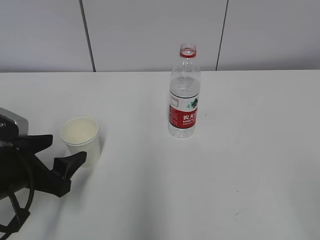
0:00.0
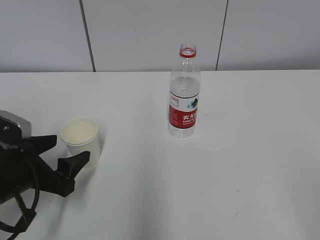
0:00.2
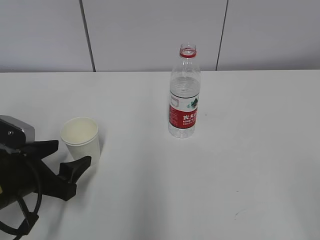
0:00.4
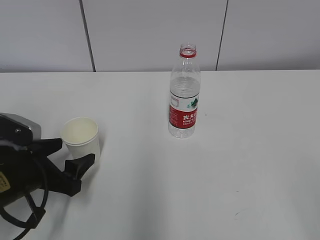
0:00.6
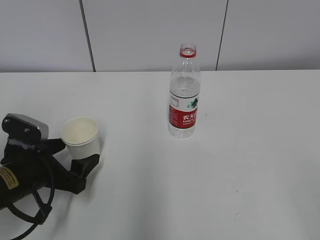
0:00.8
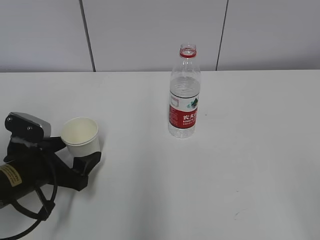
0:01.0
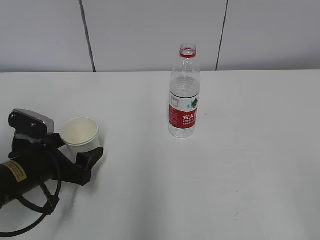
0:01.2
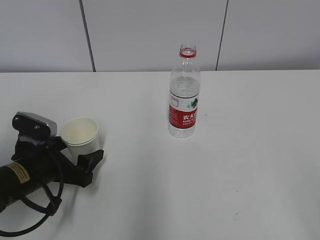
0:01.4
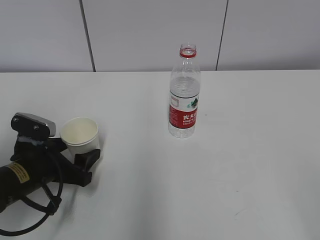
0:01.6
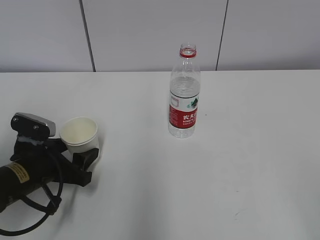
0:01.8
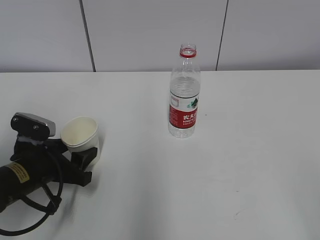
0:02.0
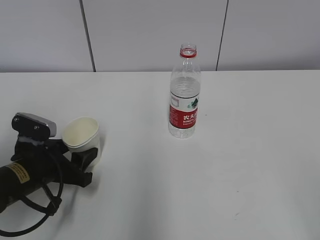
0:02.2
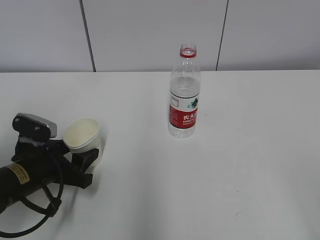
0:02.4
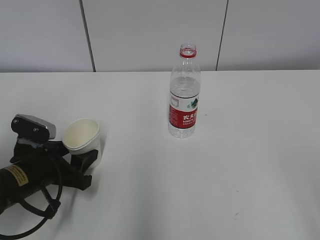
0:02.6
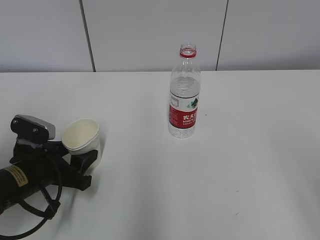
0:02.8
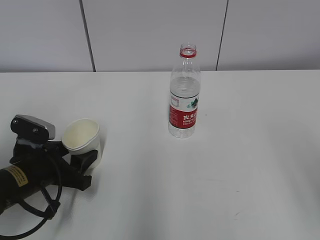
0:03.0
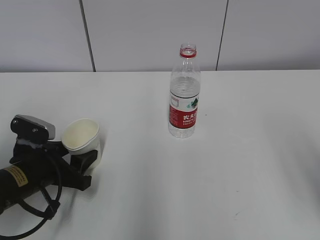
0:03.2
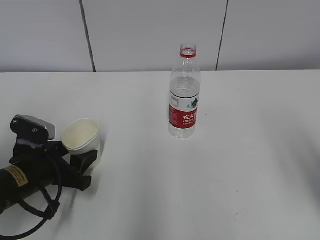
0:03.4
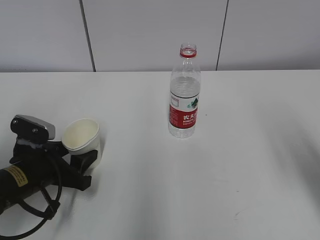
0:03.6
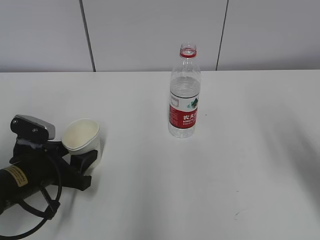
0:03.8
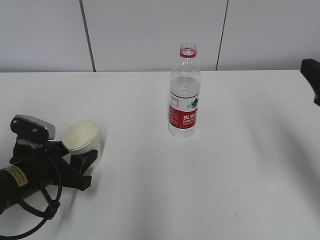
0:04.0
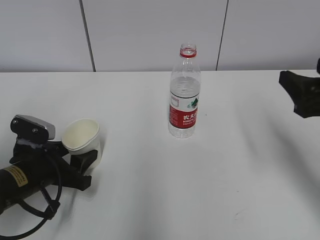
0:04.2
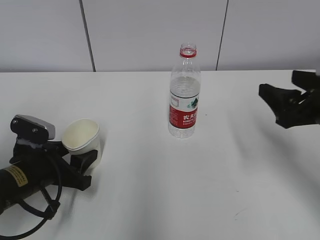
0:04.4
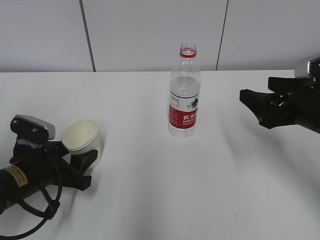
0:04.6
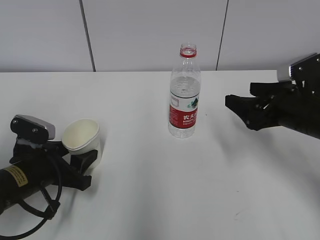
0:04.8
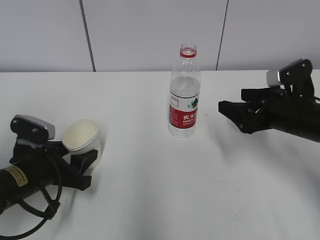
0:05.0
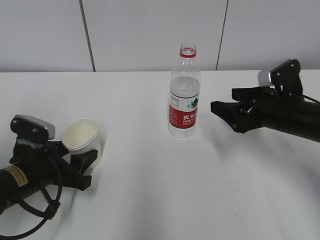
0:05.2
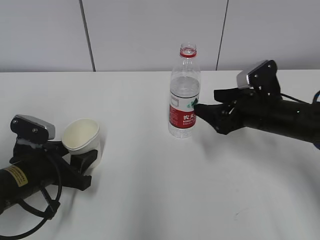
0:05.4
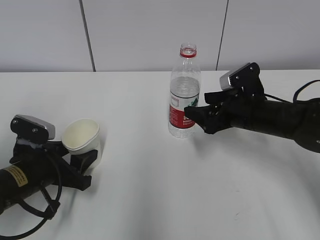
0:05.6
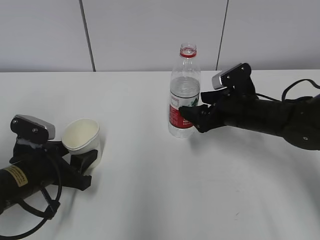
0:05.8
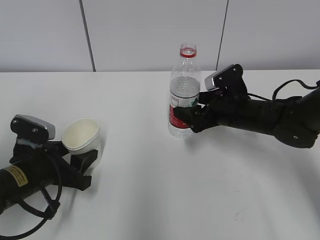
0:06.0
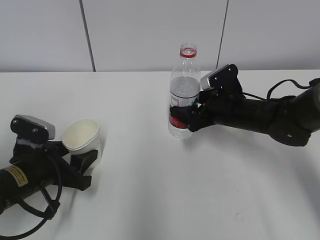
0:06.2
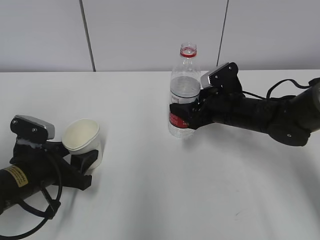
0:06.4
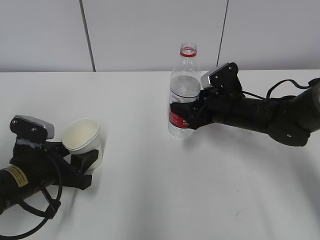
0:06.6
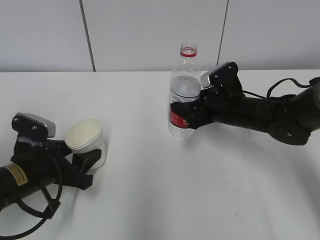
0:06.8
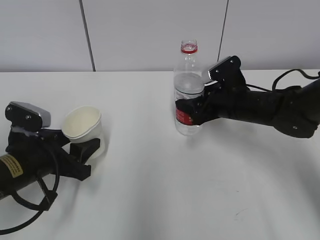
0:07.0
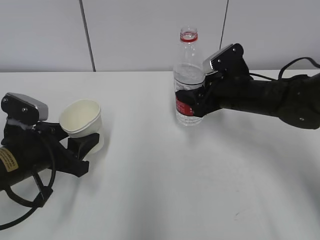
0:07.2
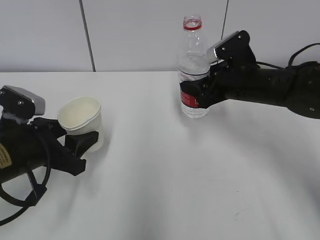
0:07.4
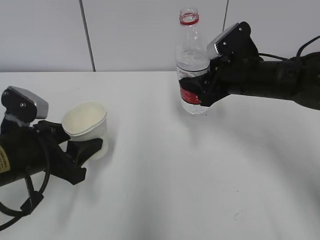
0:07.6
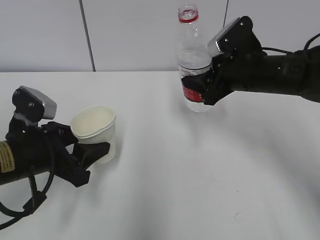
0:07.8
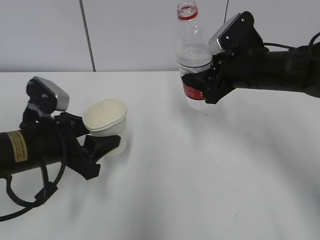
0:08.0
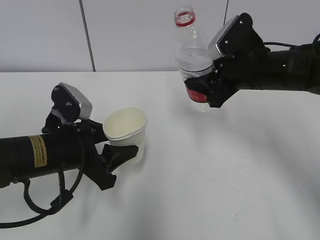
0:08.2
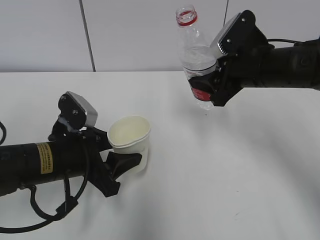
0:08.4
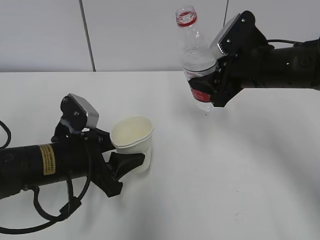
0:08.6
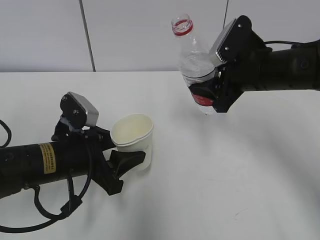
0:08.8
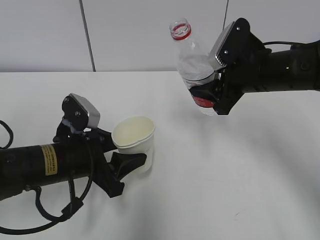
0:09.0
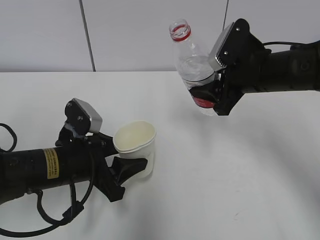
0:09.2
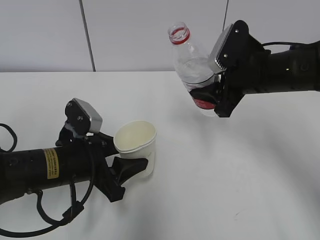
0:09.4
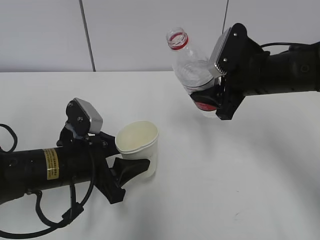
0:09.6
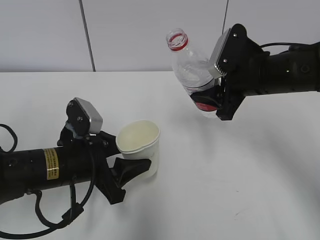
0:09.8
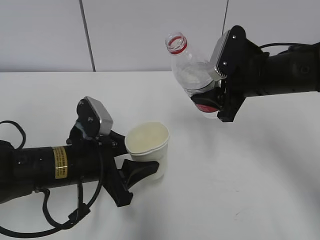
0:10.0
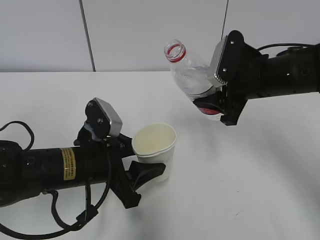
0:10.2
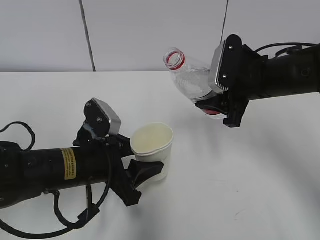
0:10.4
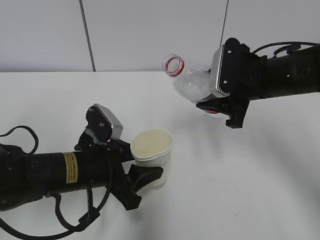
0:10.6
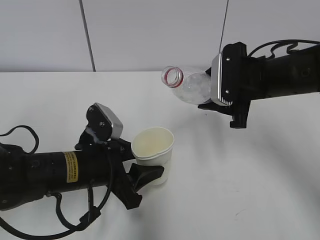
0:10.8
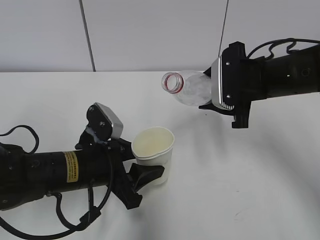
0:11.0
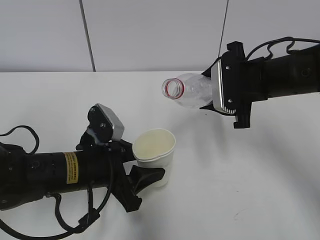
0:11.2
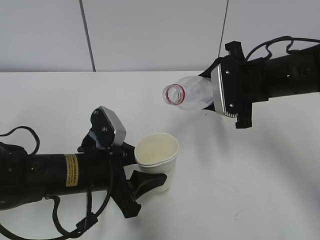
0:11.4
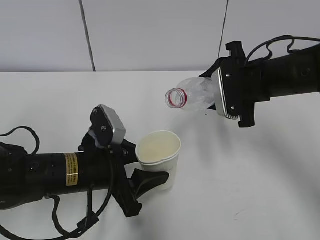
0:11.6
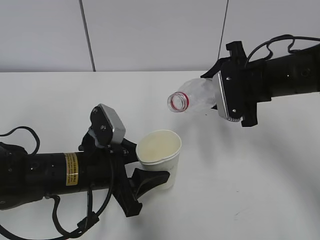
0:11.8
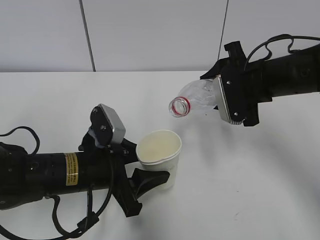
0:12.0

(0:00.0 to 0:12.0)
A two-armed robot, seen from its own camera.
Step, 0:00.0 - 0:04.2: Grab the paper cup with the left hand.
Step, 0:04.6 - 0:09.6: Lift the paper cup with the left hand.
0:00.0 - 0:01.6: The left gripper moves about 5 cm.
0:01.6 - 0:03.0: The left gripper closes.
0:03.0 - 0:04.4: The right gripper shifts approximately 20 cm forward and downward.
0:04.4 - 0:06.0: The right gripper goes about 20 cm forward, to the left and downward.
0:06.0 - 0:07.6: Both grippers move upward, roughly 10 cm. The right gripper closes.
0:07.6 - 0:09.0: The left gripper travels to the right by approximately 5 cm.
0:09.0 - 0:10.4: There are only small adjustments of the grippers.

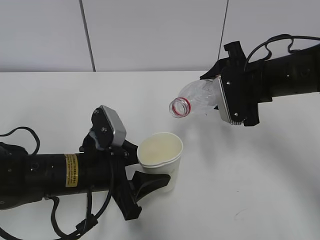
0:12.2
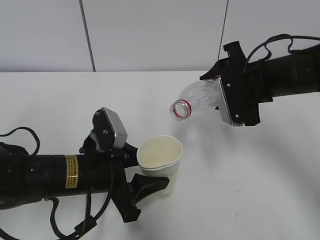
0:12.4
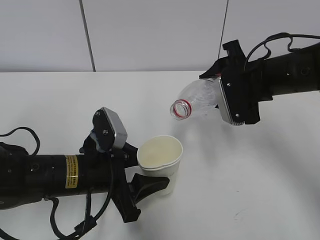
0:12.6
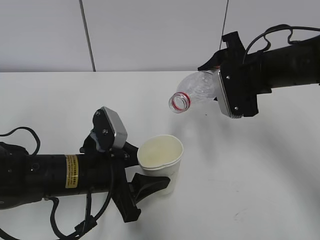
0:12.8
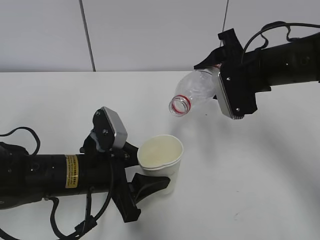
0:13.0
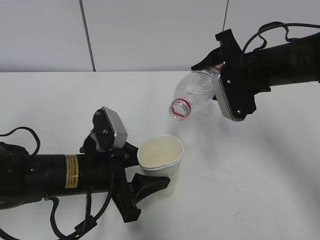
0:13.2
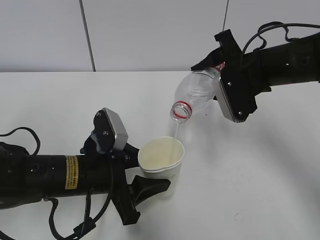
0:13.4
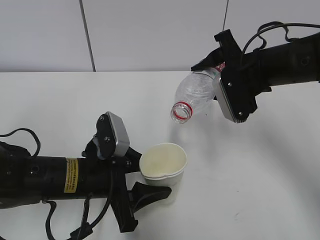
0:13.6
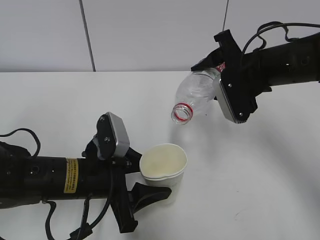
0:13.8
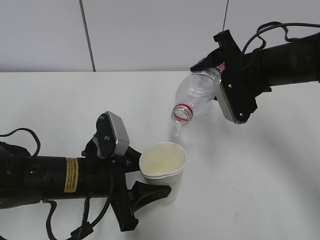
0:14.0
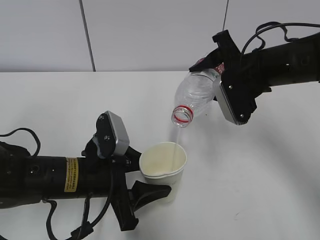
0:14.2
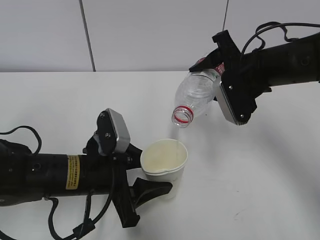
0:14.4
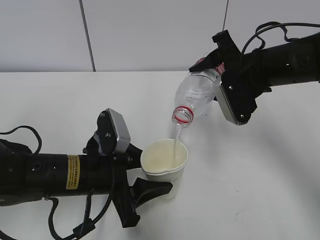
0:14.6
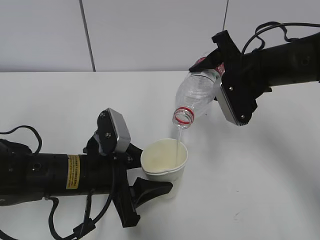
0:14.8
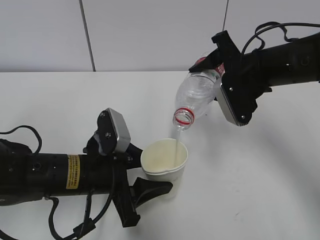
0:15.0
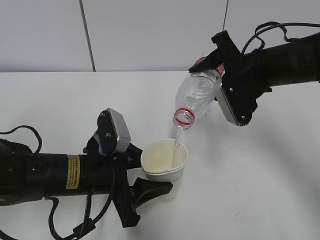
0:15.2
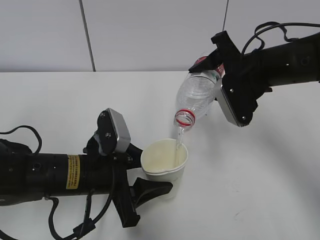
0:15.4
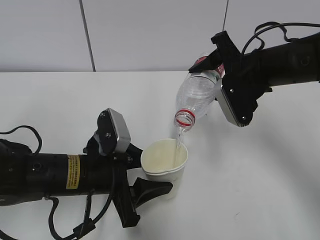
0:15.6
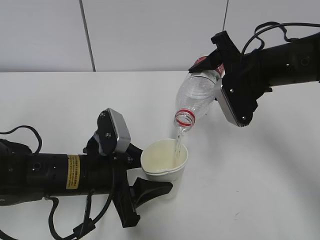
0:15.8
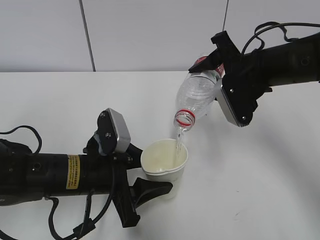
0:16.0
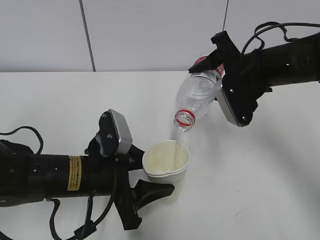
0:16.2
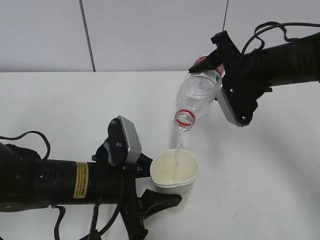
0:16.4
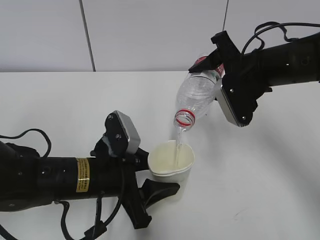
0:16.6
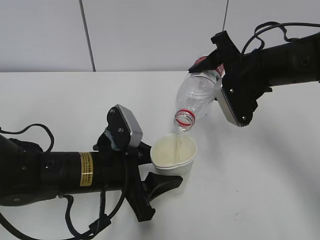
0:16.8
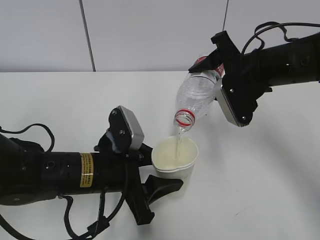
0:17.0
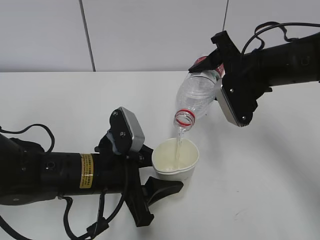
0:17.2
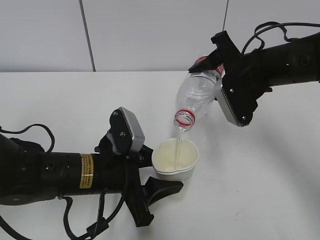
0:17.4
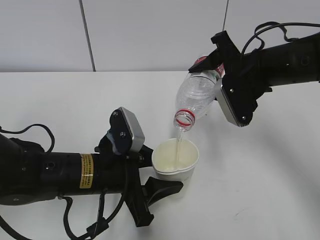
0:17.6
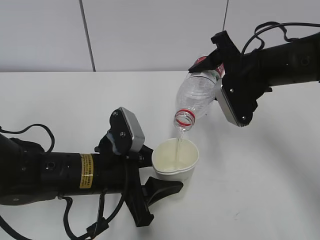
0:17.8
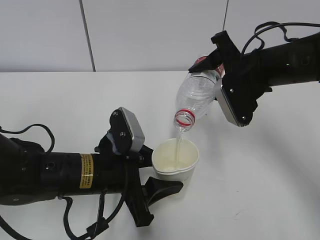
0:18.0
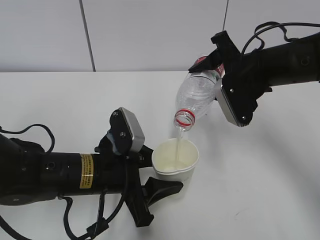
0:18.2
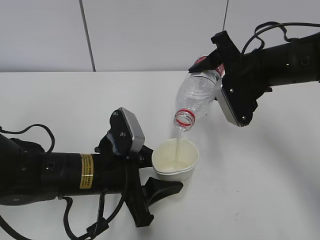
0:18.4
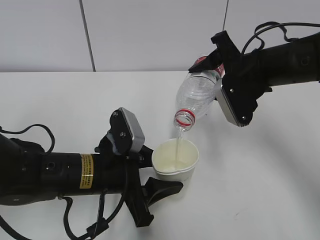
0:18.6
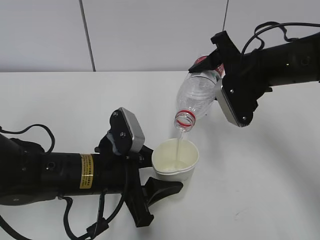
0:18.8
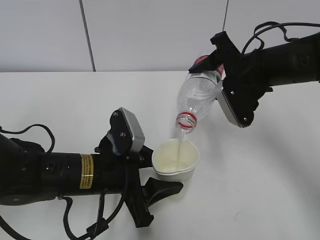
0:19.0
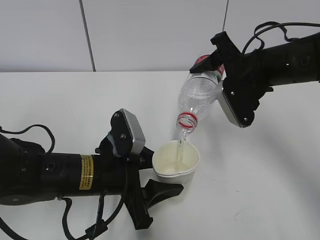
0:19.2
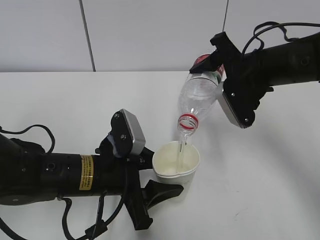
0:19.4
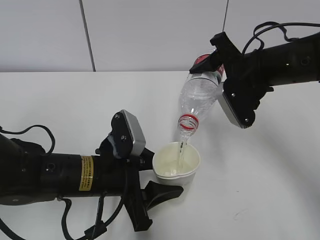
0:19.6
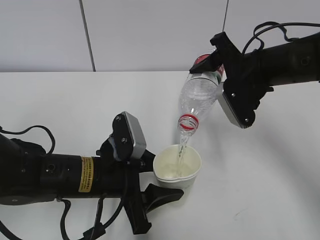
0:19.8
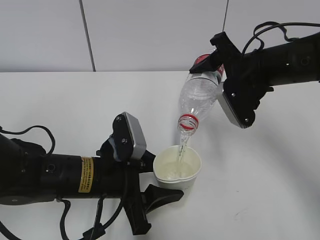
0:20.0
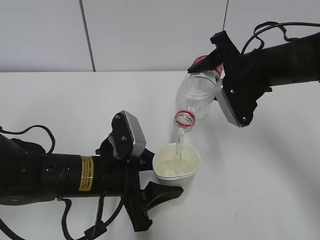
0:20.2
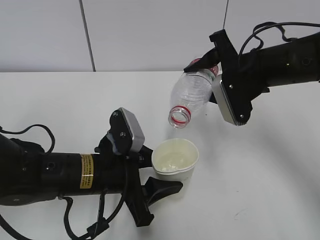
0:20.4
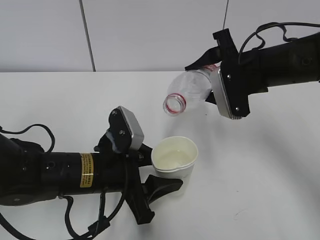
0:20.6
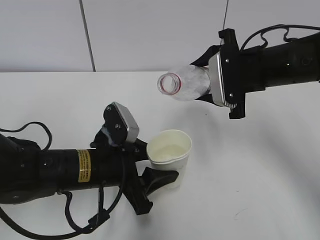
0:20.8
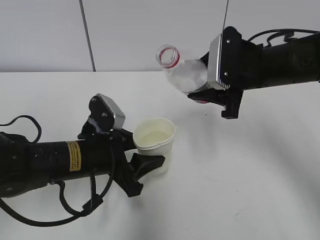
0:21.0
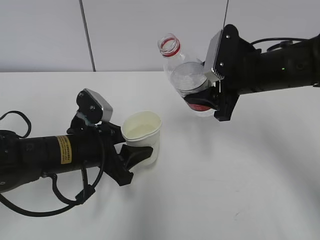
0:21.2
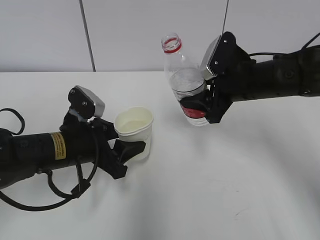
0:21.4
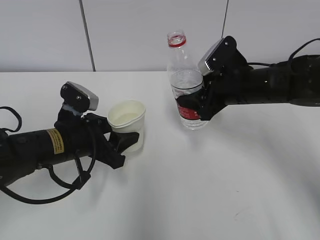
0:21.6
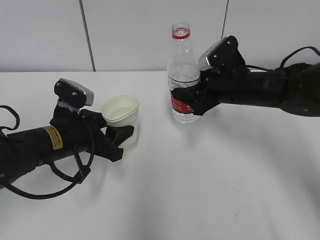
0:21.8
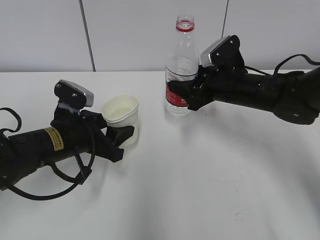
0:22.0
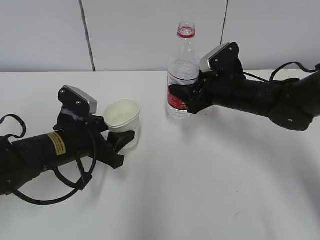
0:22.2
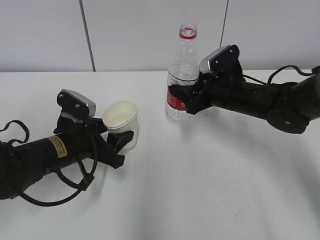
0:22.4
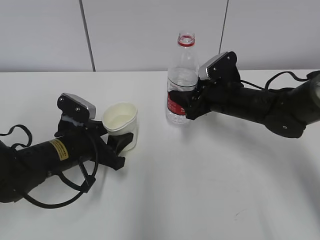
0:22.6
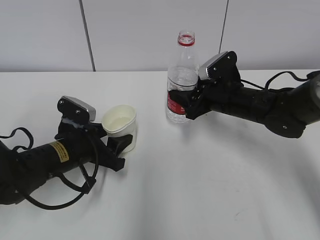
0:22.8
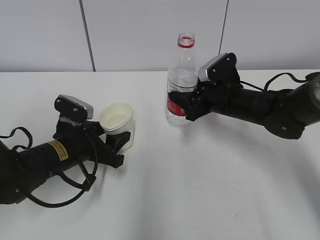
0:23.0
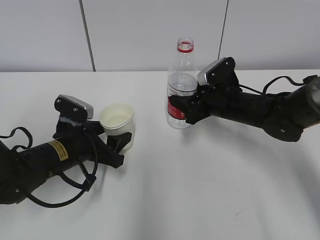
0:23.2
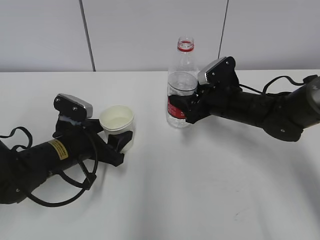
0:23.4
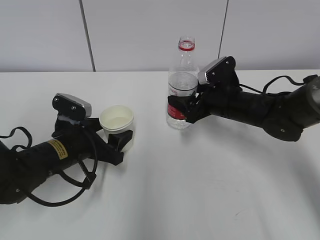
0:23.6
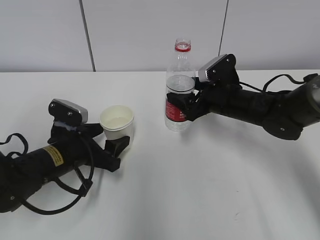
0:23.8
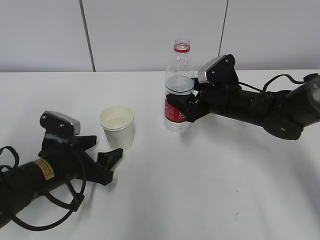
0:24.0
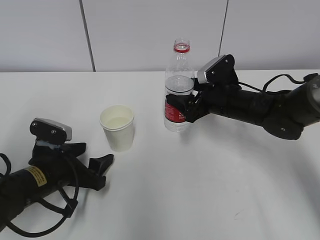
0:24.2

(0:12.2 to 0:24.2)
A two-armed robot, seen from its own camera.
Step, 0:12.2 - 0:15.8: Fill water with the left hand.
Step, 0:12.2 - 0:15.8: Pour water with the right hand.
Step, 0:17.0 - 0:18.2: Place the paper cup with the left hand.
Step, 0:18.4 - 0:20.0: Place the water bottle with the right hand.
0:12.2 - 0:13.8: The grippers stay close to where they were, moving slightly.
0:13.8 - 0:15.2: Both grippers stay put.
0:15.2 - 0:16.6: There are only small adjustments of the grippers.
0:16.6 - 0:18.2: The two grippers keep their place.
0:18.2 - 0:19.8: Both grippers stay put.
0:19.8 - 0:21.2: The left gripper moves some 5 cm.
0:21.2 - 0:22.6: The right gripper moves downward, roughly 10 cm.
0:22.6 - 0:24.2: The right gripper opens. The left gripper changes place by about 5 cm, and opens up.
